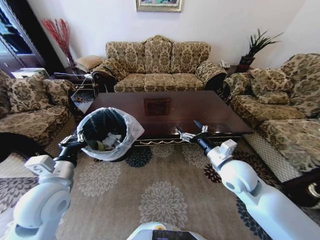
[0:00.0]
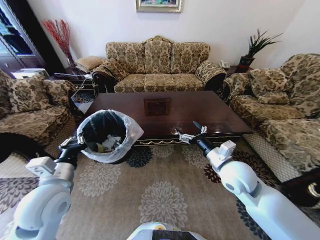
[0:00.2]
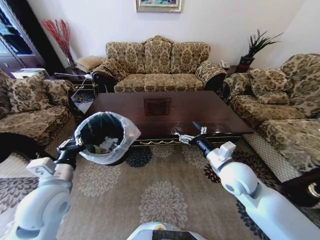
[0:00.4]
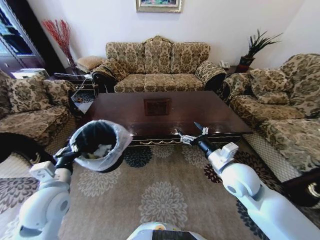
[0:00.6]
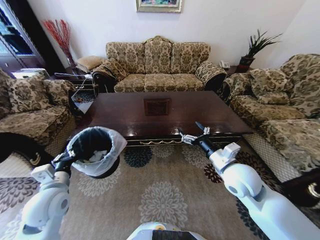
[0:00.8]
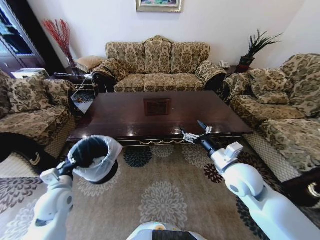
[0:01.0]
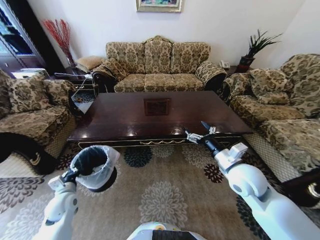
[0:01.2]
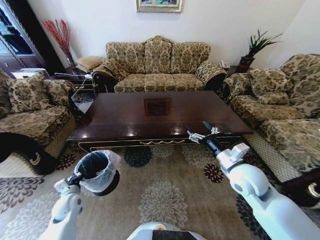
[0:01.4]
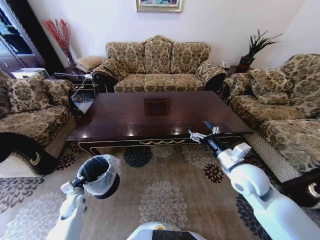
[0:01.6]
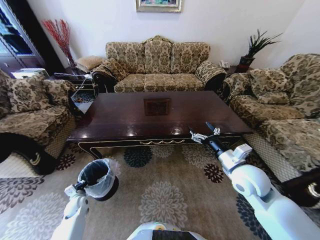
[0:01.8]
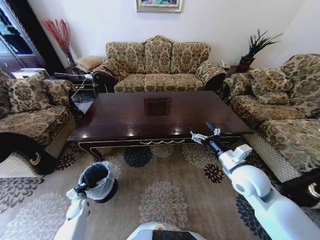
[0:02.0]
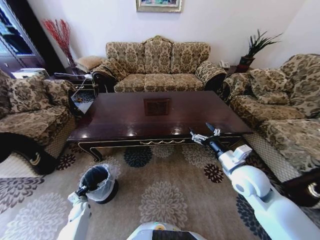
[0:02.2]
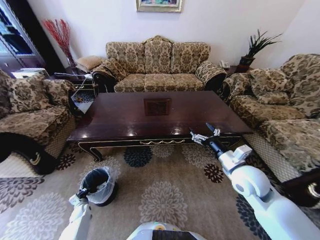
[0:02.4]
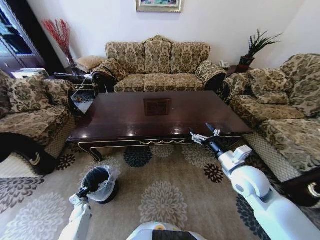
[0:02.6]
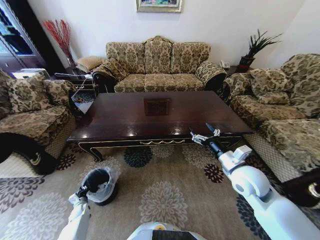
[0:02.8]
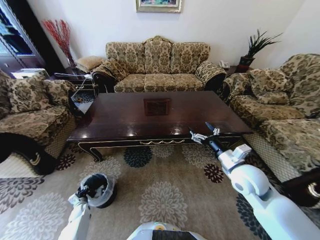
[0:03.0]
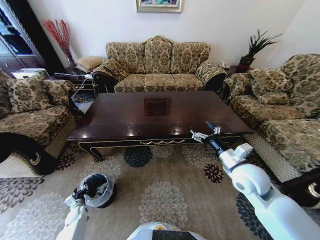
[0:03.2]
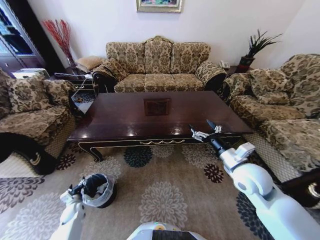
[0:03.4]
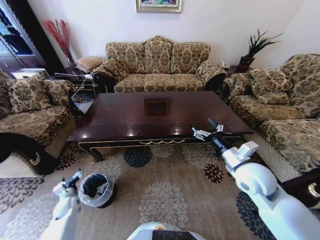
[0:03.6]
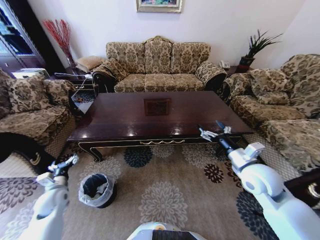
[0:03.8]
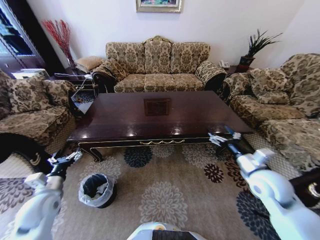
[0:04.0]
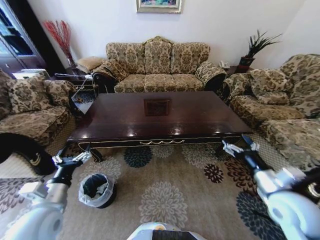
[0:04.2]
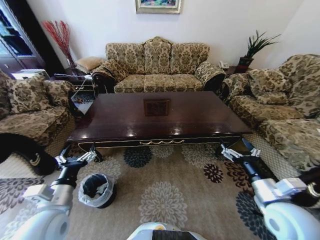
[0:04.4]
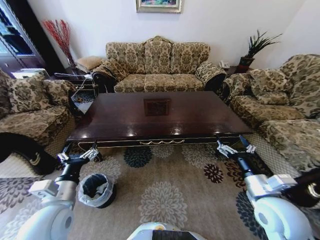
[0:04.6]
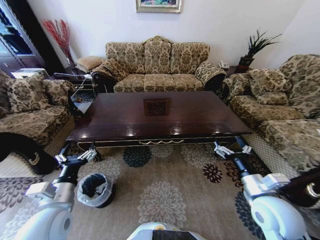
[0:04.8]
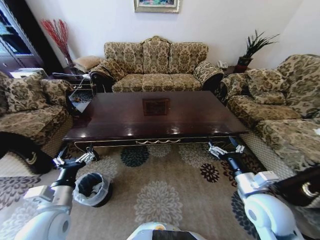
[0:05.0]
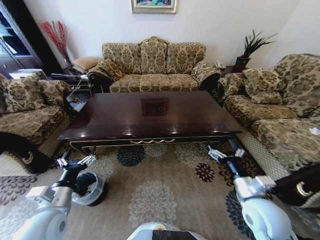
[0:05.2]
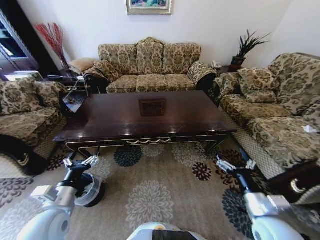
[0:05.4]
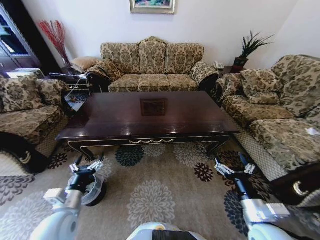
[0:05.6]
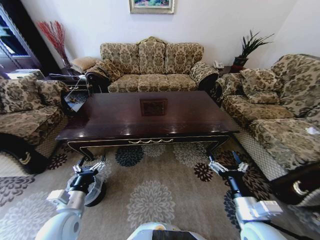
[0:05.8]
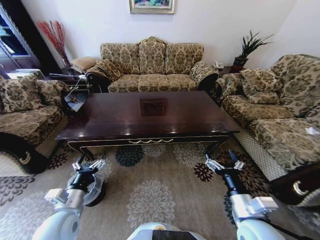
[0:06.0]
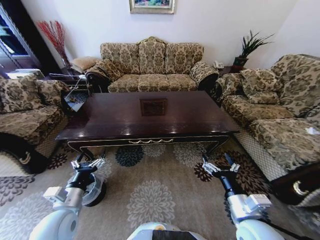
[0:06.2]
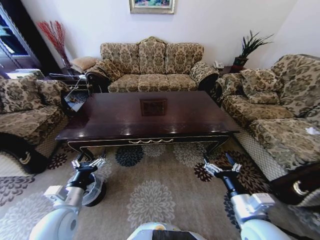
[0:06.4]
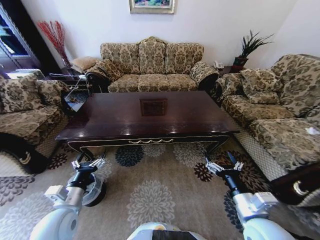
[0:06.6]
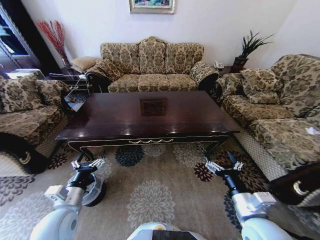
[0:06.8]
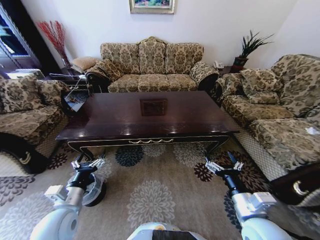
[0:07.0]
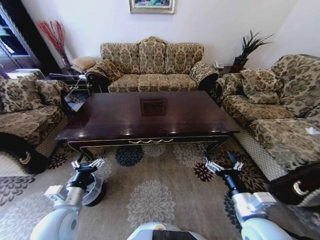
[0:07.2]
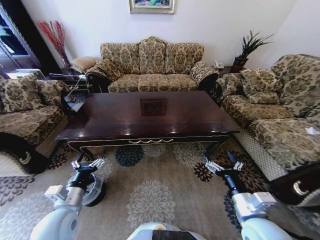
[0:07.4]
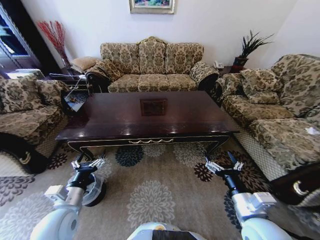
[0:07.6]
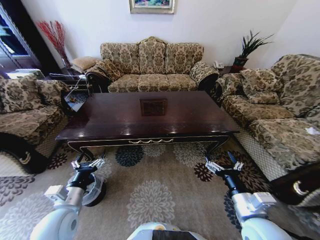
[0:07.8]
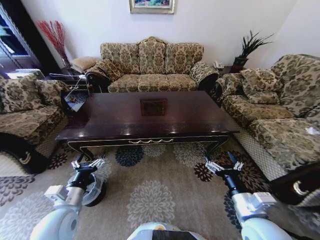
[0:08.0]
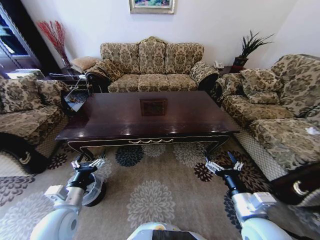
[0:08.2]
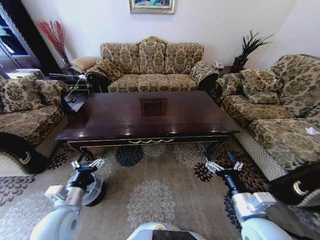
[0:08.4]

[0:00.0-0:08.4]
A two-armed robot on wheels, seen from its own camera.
Task of the whole recording: Move to the front of the table and place the trash on the table into the trash bin.
0:00.0 to 0:01.4: The left gripper moves downward and to the left, about 25 cm.
0:01.4 to 0:02.8: The left gripper goes roughly 20 cm downward.
0:02.8 to 0:04.2: The right gripper travels backward and to the right by some 10 cm. The left gripper is displaced upward by roughly 40 cm, and opens its fingers.
0:04.2 to 0:05.6: The right gripper travels backward, downward and to the left by some 10 cm, while the left gripper ends up roughly 5 cm from where it was.
0:05.6 to 0:07.0: The grippers make only small movements.
0:07.0 to 0:08.4: Both grippers stay put.
